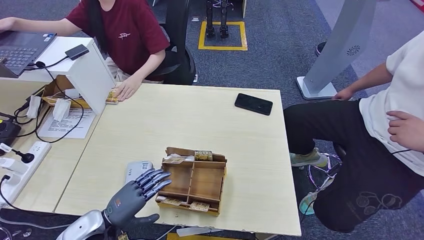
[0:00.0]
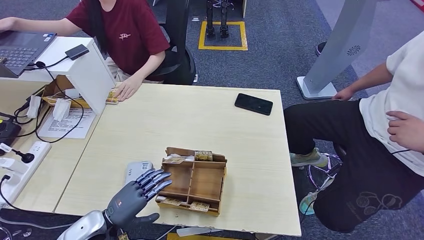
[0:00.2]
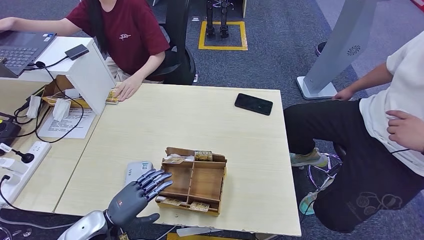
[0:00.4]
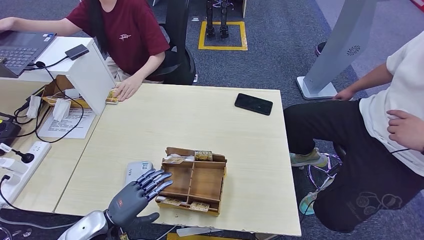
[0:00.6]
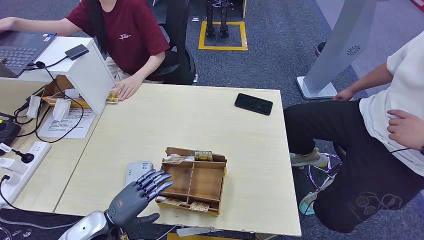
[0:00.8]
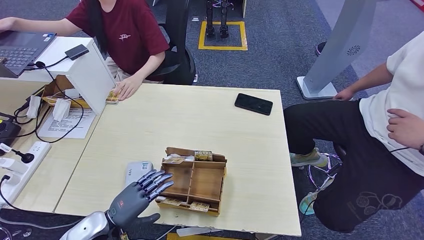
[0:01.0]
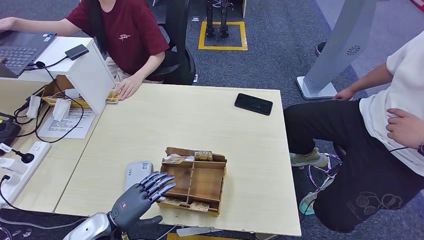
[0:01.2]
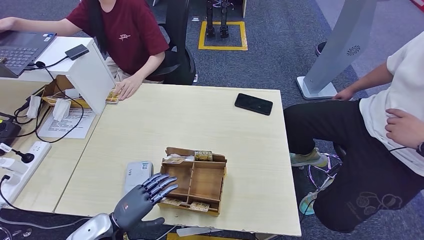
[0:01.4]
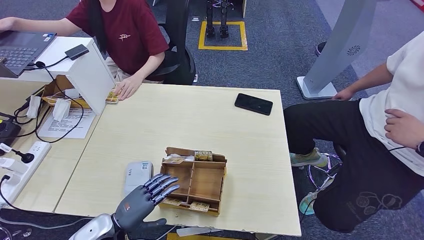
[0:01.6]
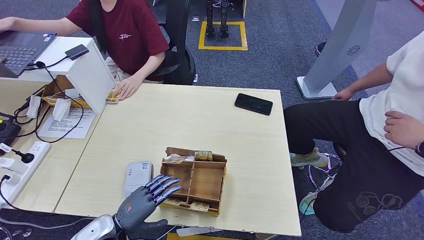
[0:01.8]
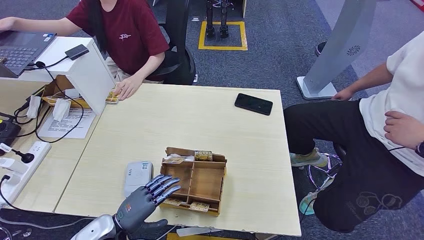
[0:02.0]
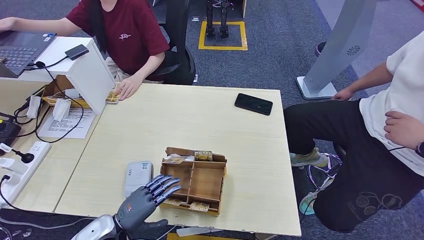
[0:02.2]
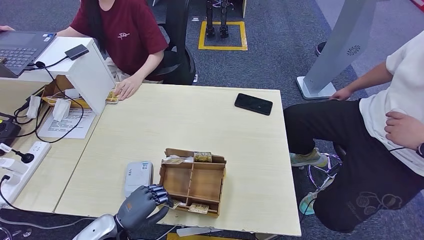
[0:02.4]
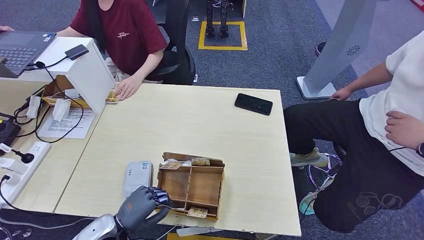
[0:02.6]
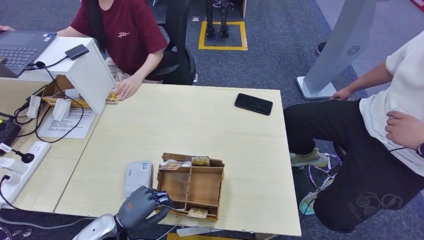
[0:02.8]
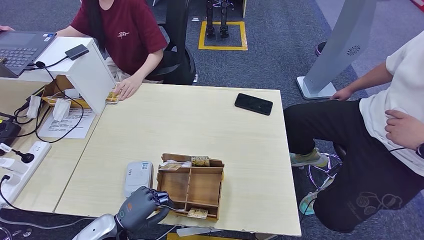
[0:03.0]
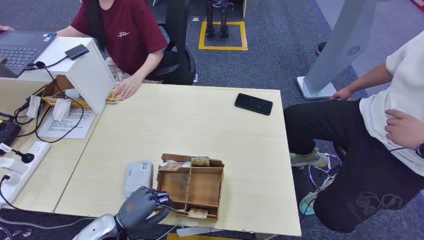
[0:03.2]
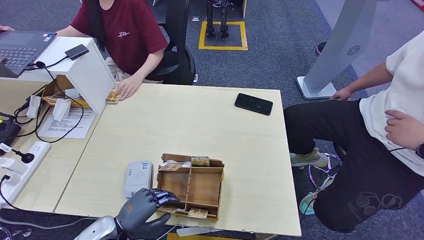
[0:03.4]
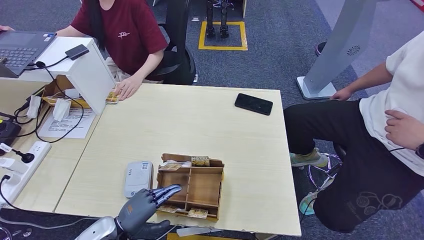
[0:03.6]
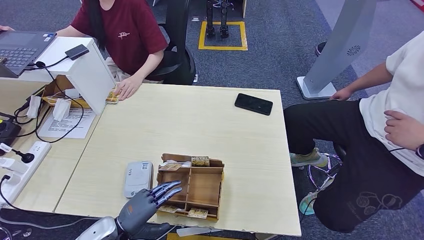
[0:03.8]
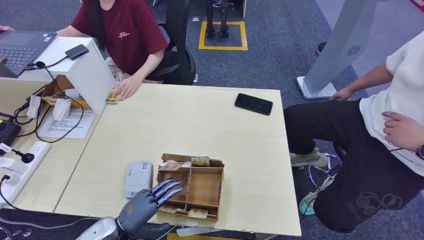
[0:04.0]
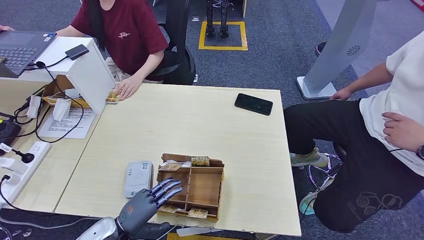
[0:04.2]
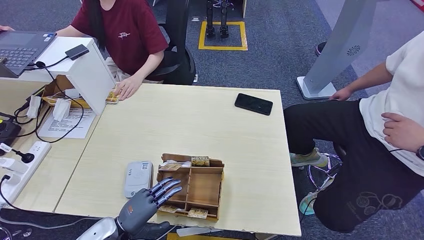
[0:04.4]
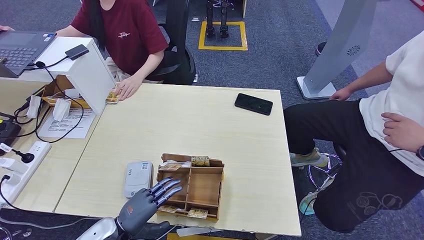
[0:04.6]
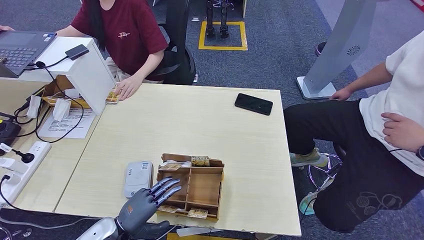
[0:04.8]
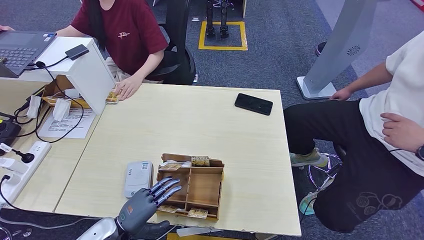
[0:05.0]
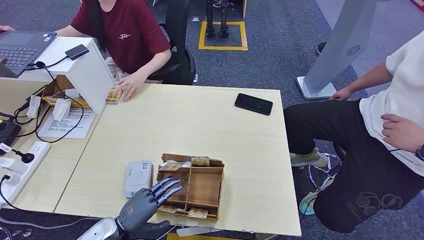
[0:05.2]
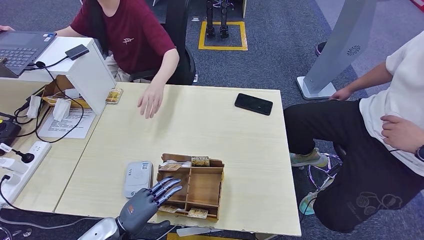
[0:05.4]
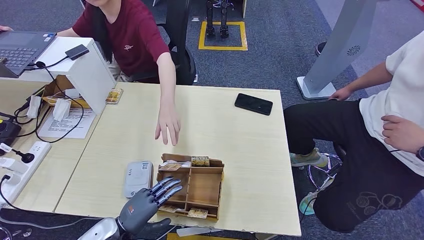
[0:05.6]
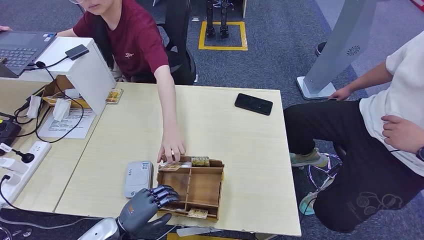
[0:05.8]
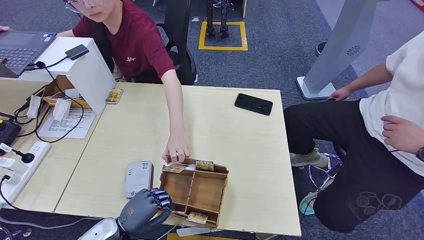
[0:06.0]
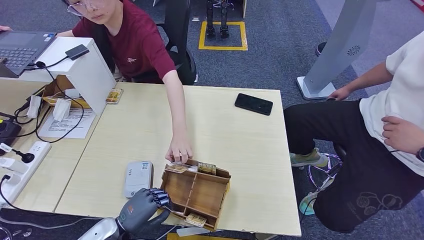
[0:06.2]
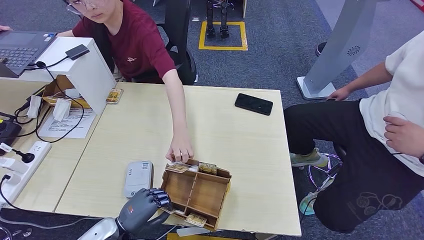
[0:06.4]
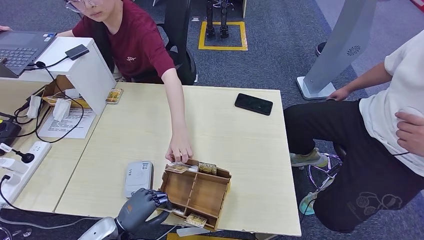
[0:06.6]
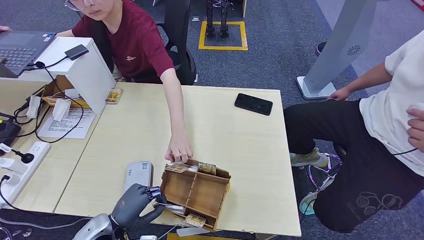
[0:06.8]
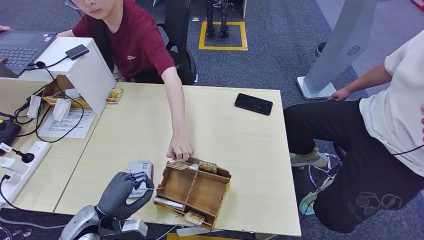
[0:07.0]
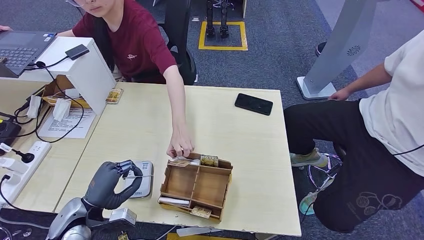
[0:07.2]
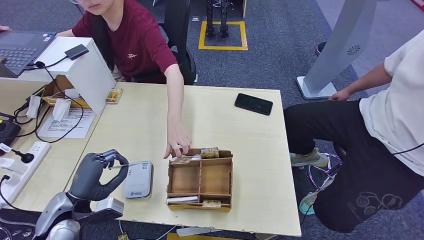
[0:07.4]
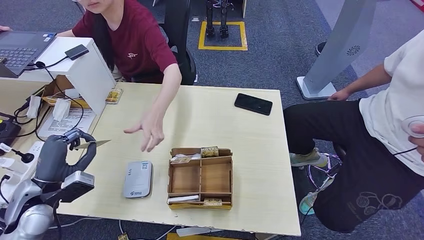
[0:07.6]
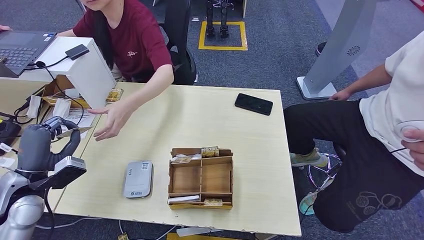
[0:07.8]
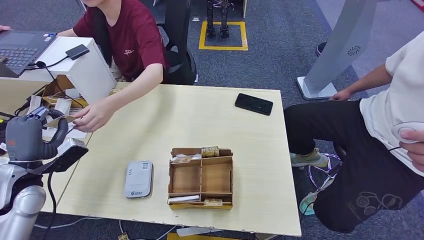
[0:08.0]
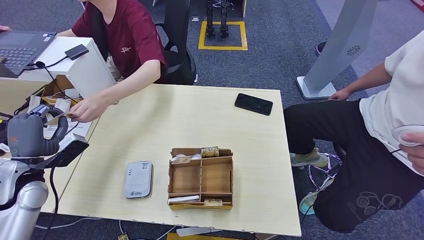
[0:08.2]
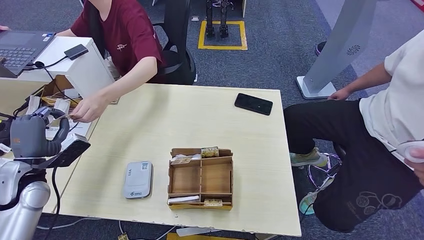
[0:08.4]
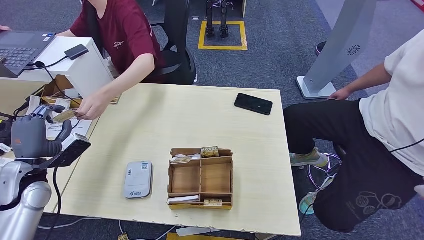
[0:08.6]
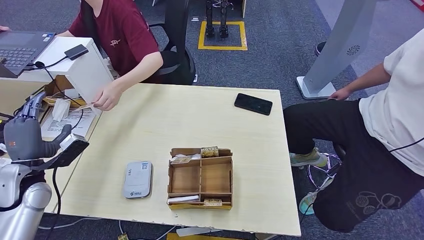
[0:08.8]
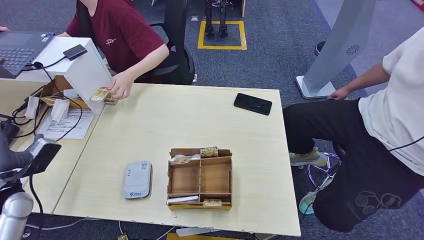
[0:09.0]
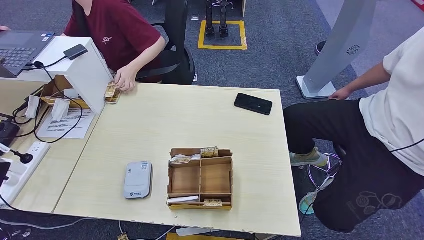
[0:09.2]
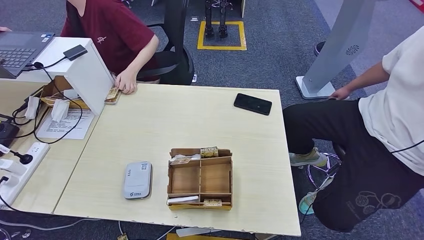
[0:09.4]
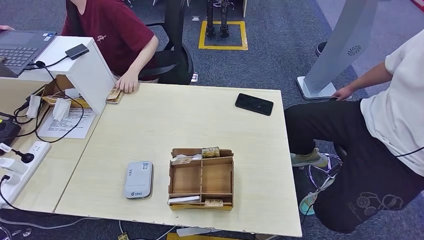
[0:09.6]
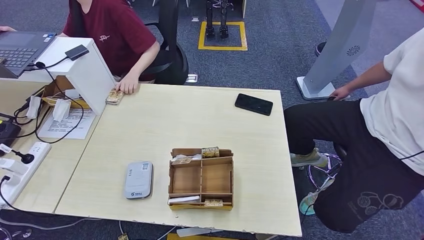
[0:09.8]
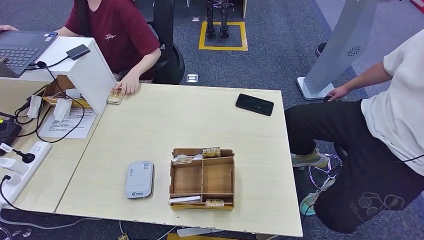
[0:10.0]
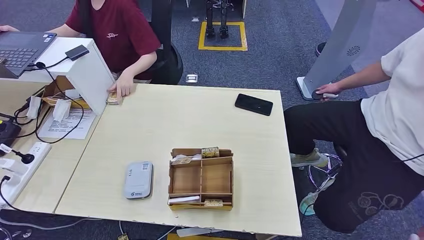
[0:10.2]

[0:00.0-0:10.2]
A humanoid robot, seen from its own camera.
Step, 0:00.0 to 0:07.0: Pick up the room key from the key card box.
Step, 0:07.6 to 0:10.0: Hand the room key to the person.
0:00.0 to 0:01.4: The hands stay close to where they were, moving slightly.
0:01.4 to 0:03.0: Both hands stay about where they are.
0:03.0 to 0:05.8: The two hands keep their place.
0:05.8 to 0:07.2: The left hand travels to the left by approximately 5 cm.
0:07.2 to 0:08.8: The left hand heads to the left, forward and upward, covering about 15 cm.
0:08.8 to 0:10.2: The left hand travels downward and backward by about 40 cm.
